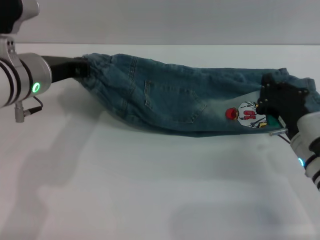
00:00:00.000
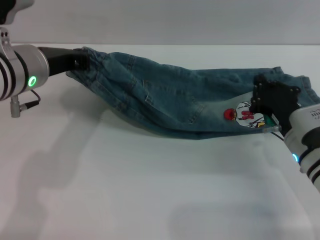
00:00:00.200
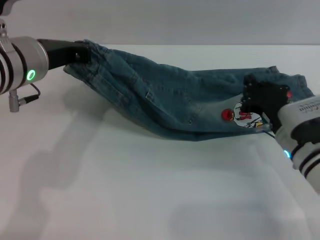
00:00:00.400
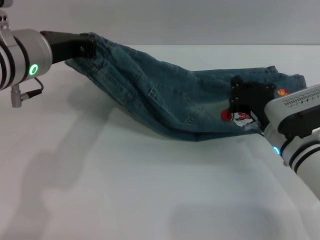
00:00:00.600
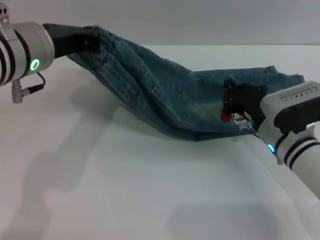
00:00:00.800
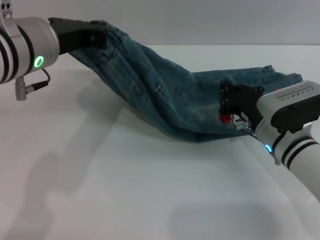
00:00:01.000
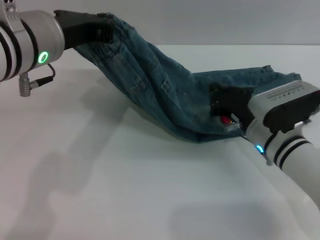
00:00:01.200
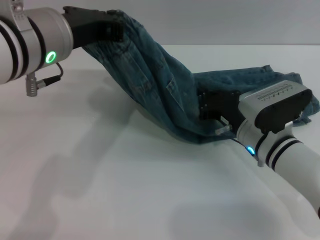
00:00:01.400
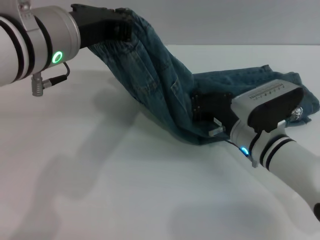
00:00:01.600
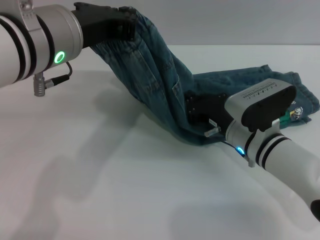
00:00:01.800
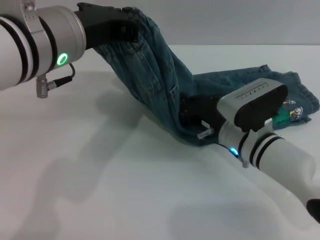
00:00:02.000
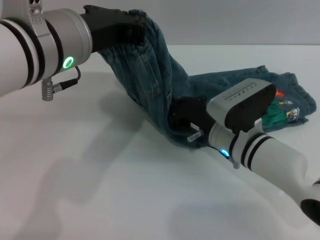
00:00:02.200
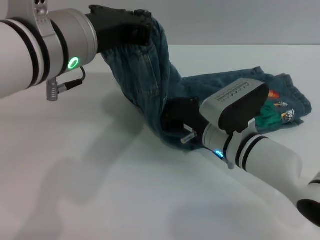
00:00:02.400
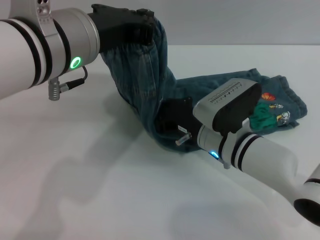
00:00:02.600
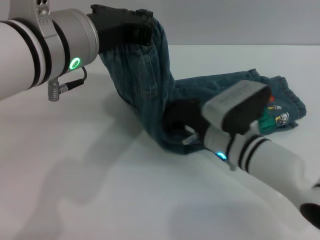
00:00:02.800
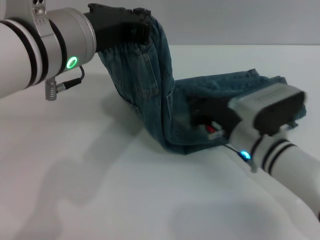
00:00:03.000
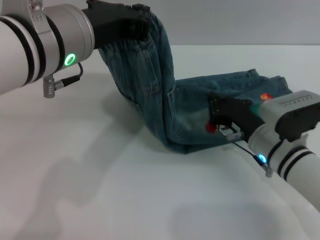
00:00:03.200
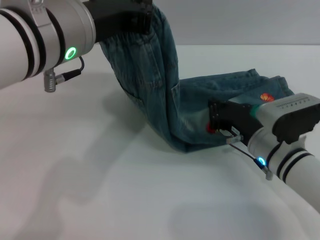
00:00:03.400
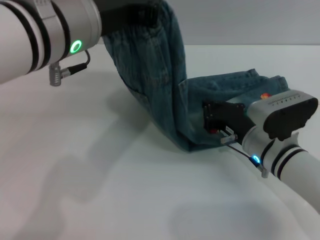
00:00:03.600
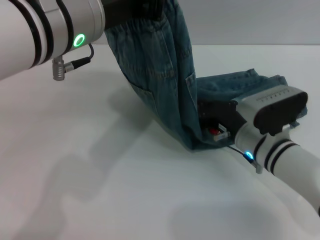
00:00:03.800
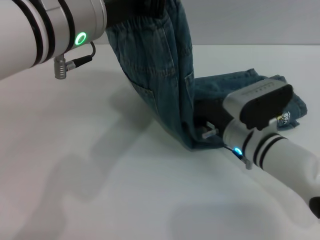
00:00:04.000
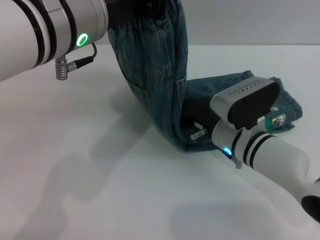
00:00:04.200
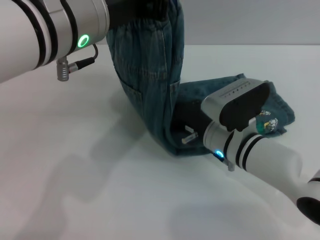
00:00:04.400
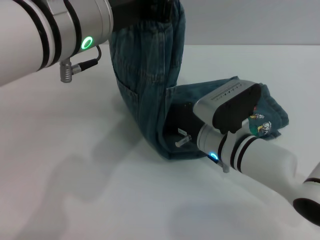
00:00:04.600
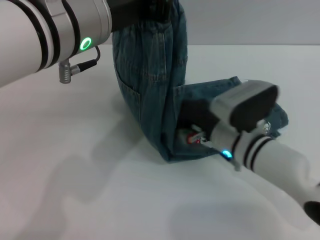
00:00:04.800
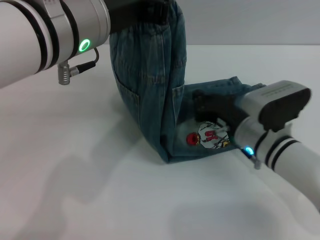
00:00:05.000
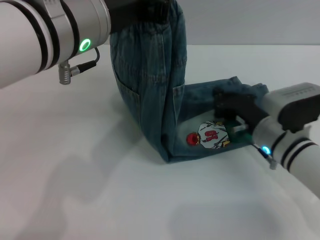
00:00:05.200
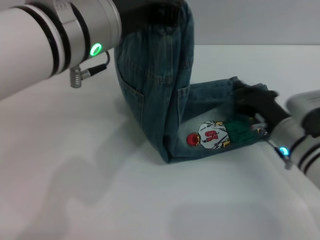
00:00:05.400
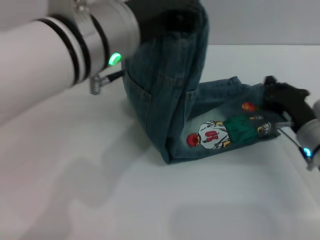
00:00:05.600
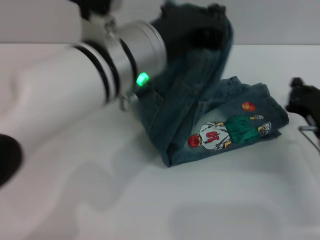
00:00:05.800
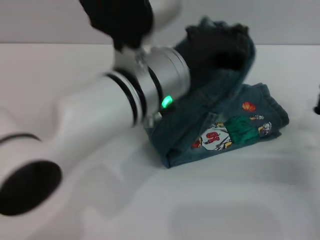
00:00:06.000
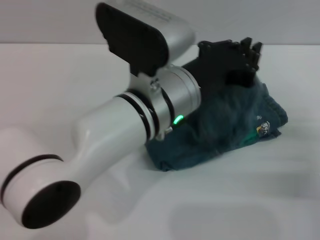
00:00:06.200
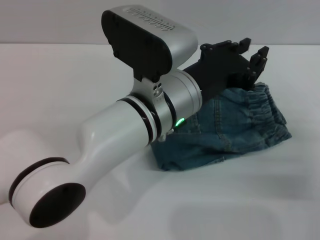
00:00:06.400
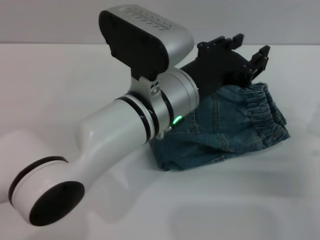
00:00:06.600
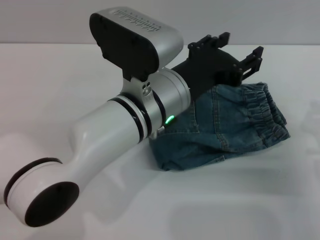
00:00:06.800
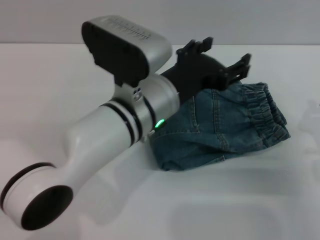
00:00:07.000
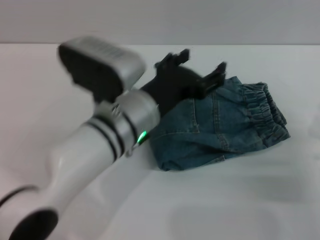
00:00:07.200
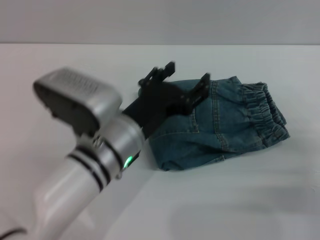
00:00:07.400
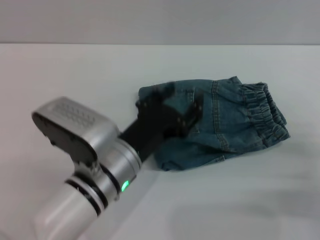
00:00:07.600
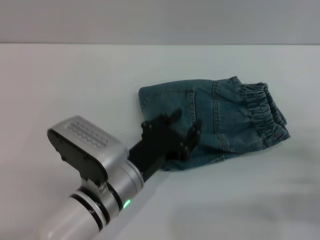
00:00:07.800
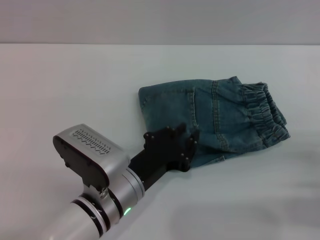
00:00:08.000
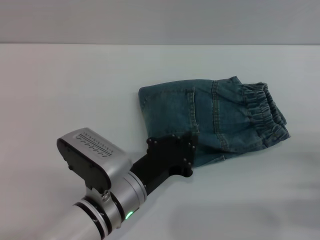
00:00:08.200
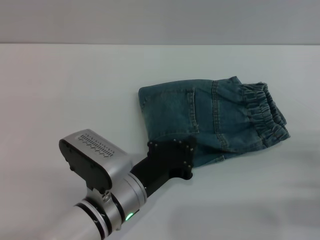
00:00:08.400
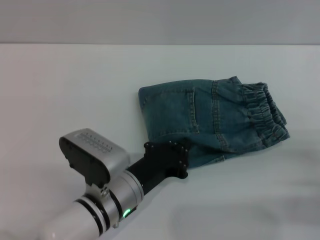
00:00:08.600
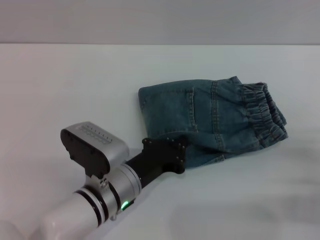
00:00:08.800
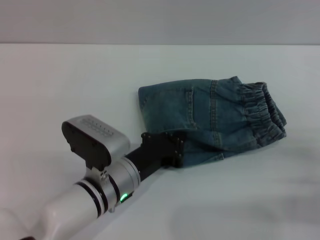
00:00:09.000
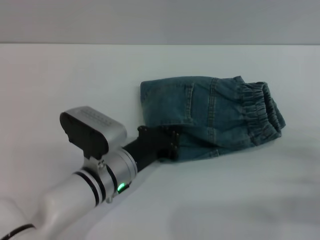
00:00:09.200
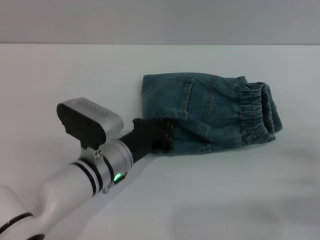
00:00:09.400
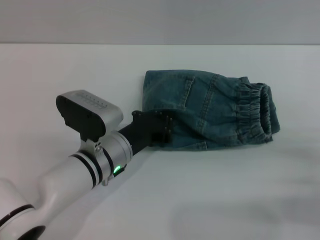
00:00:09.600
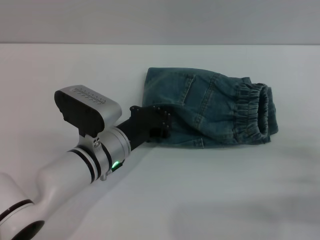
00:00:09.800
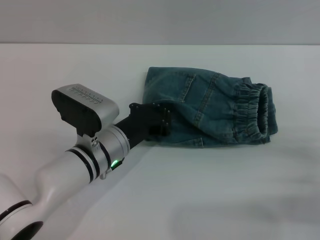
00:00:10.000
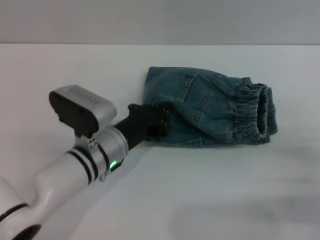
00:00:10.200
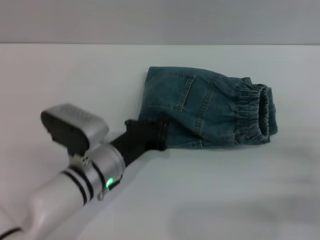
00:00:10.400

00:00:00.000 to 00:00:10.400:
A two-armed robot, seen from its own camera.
Step, 00:00:00.000 to 00:00:07.400: Fold the pants from left to right with the left gripper.
00:00:00.000 to 00:00:01.400: The right gripper moves to the left, roughly 5 cm, while the left gripper travels upward by about 10 cm.
00:00:01.400 to 00:00:03.000: The grippers make only small movements.
00:00:04.400 to 00:00:06.000: The left gripper shifts roughly 10 cm downward and to the right, while the right gripper moves to the right, about 20 cm.
00:00:06.000 to 00:00:07.400: The left gripper shifts approximately 10 cm downward, and opens its fingers. The right gripper shifts some 5 cm backward.
00:00:07.400 to 00:00:09.000: The left gripper shifts roughly 10 cm downward, and closes up.
00:00:09.000 to 00:00:10.400: The grippers stay close to where they were, moving slightly.

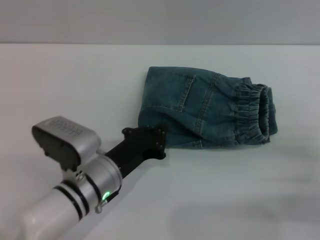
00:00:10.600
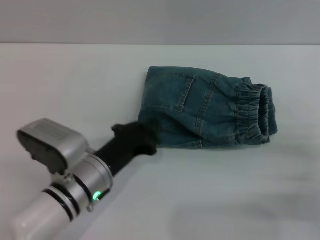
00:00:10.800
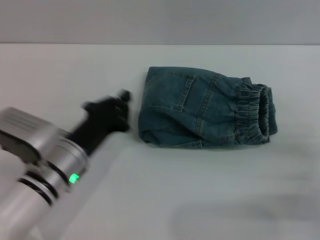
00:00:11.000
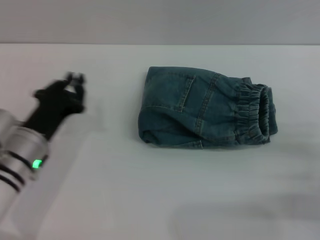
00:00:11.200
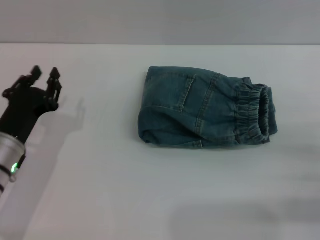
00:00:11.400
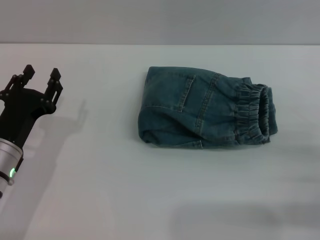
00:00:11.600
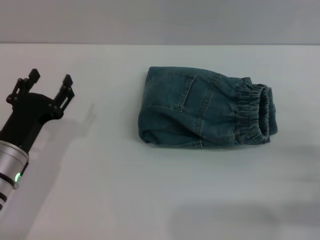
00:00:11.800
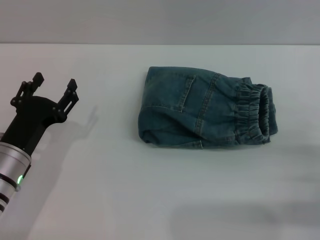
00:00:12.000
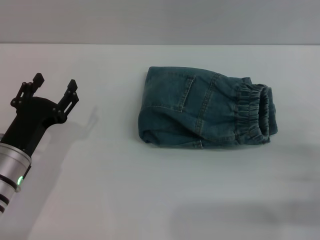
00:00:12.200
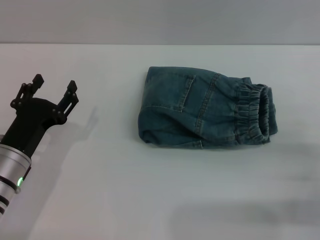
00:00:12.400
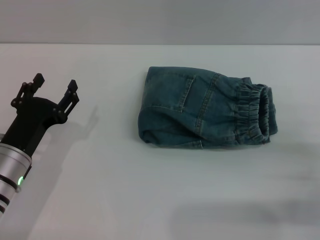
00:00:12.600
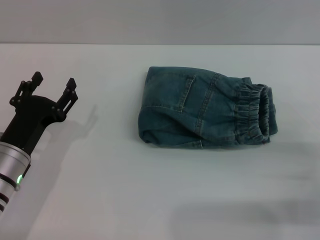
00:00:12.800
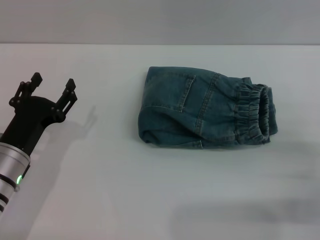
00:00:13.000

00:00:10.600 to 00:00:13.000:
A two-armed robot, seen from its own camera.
00:00:10.600 to 00:00:11.800: The right gripper opens. The left gripper is displaced to the left by roughly 10 cm, and opens.
